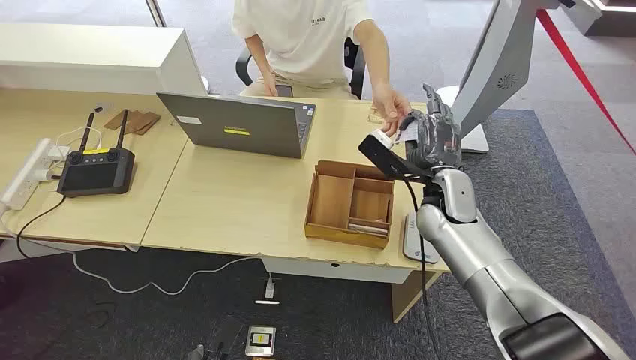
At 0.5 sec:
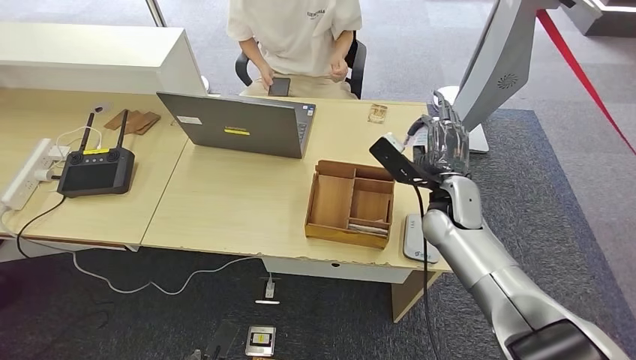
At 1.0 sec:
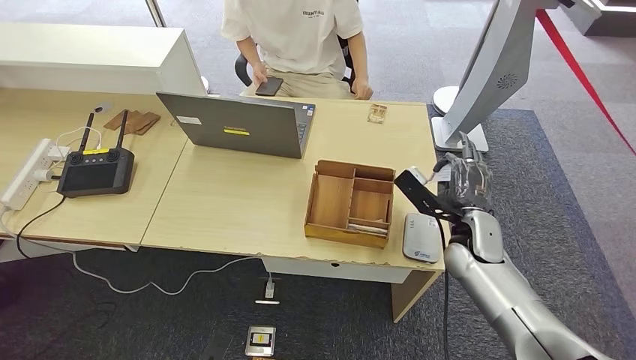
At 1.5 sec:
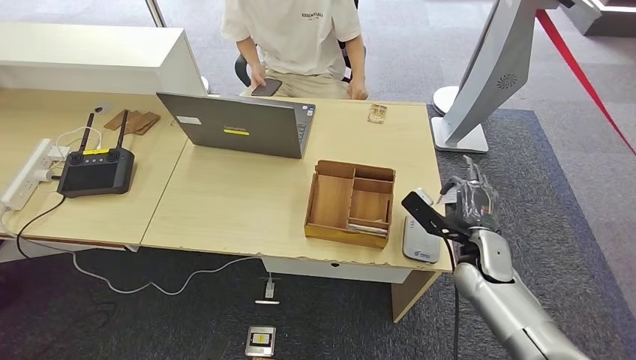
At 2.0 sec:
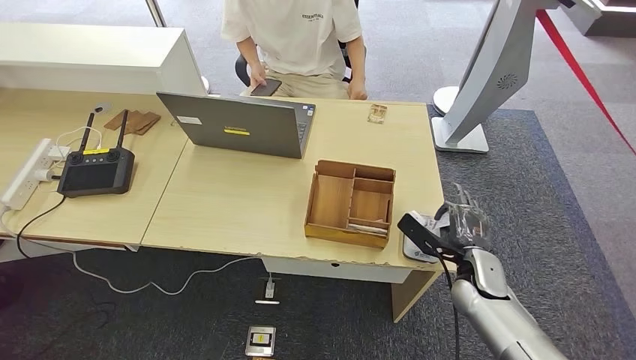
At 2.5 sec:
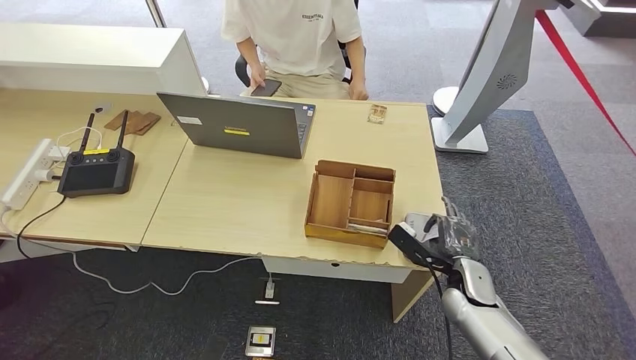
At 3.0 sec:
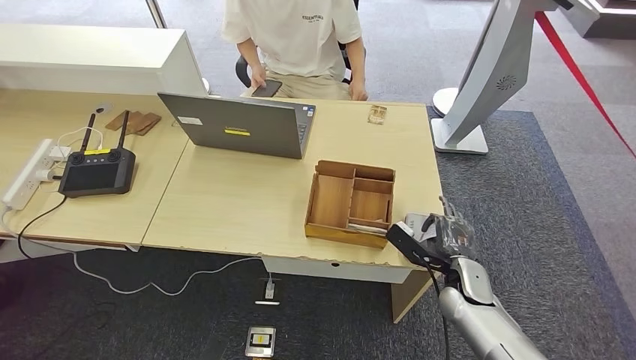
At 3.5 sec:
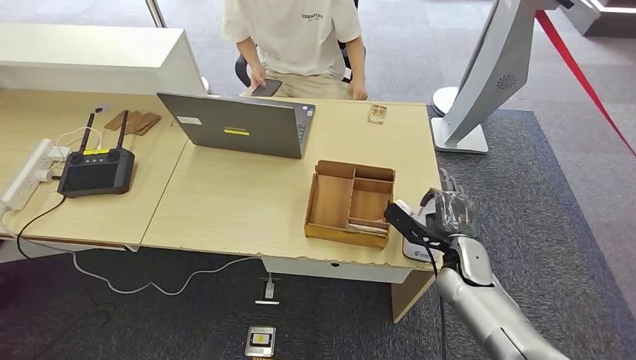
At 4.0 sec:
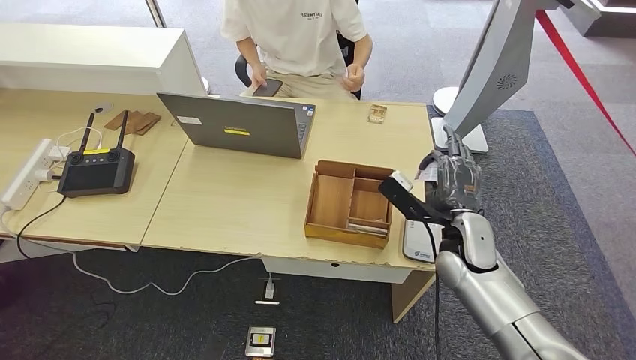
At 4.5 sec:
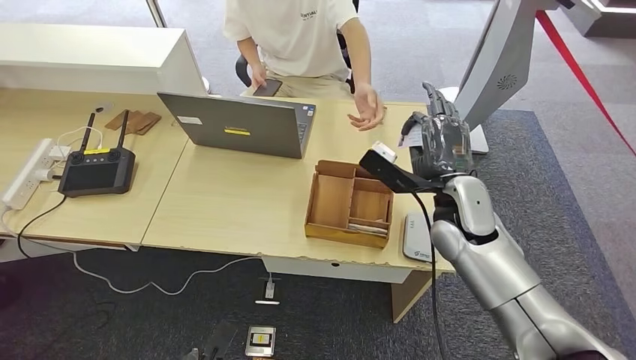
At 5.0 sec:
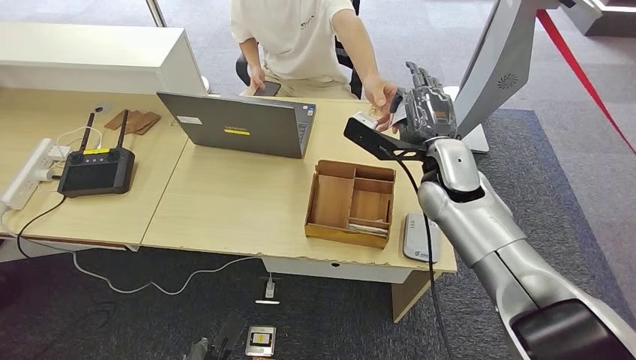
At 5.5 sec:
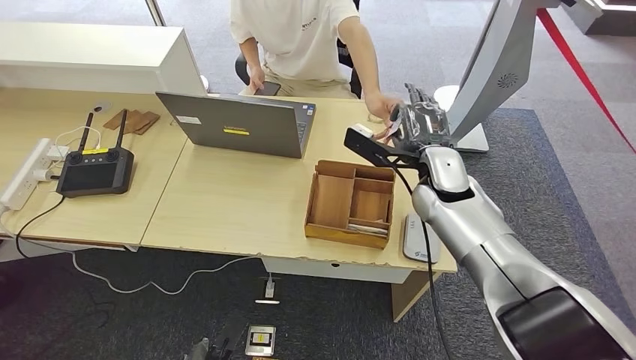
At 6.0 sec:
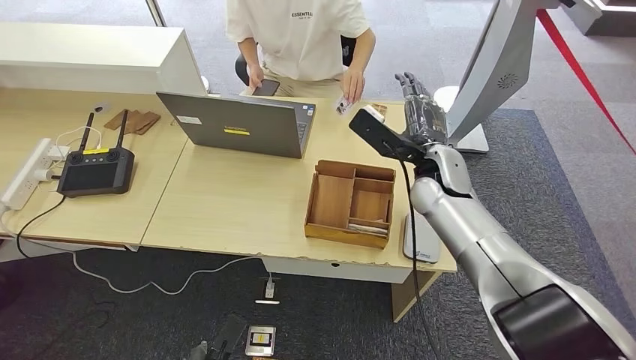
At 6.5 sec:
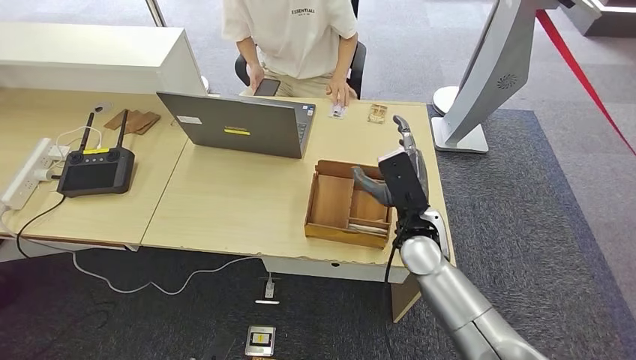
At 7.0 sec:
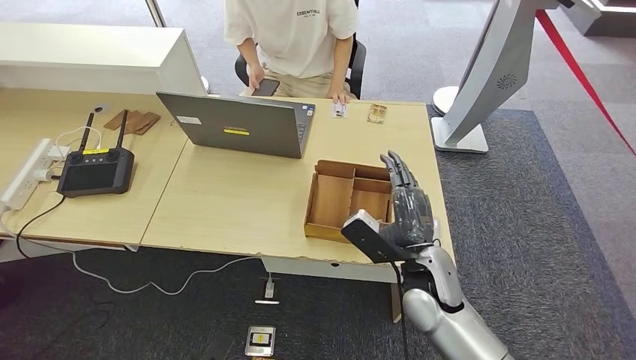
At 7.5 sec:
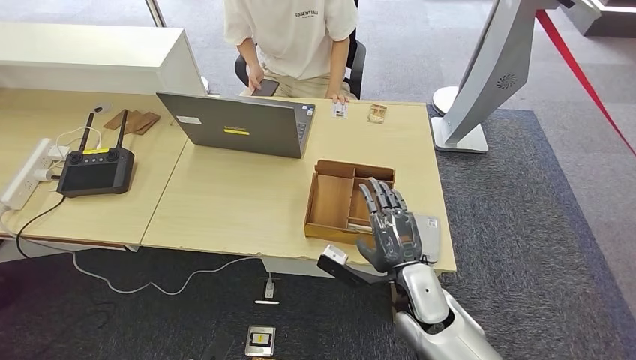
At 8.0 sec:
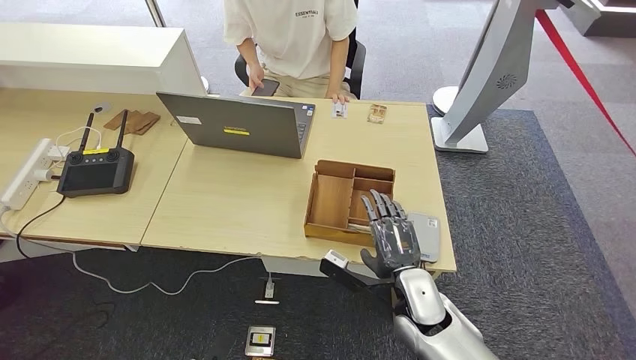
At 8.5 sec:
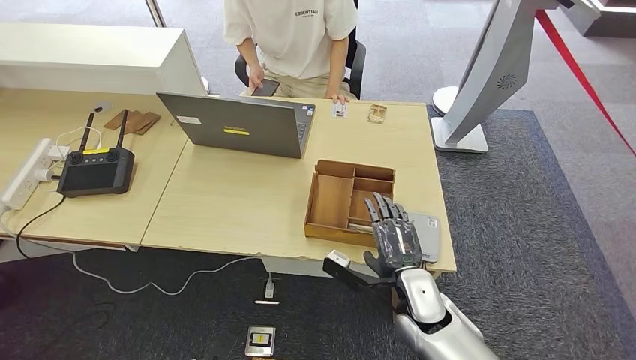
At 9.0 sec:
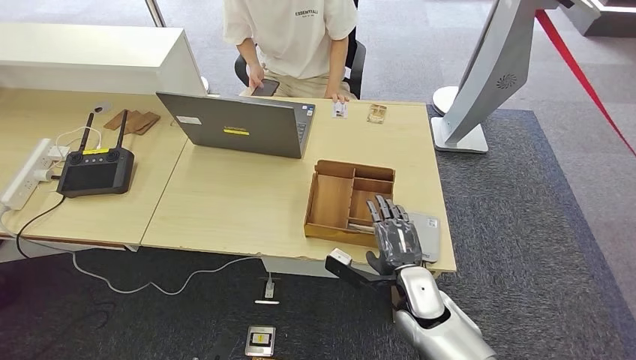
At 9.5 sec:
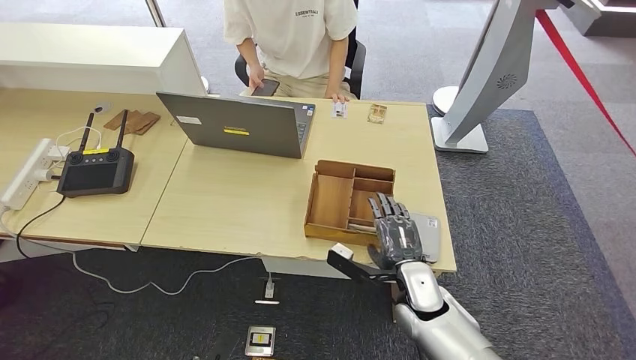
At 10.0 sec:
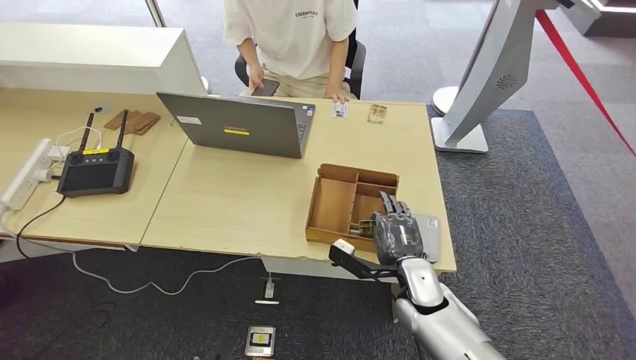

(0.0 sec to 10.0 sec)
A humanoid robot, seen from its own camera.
Step, 0.0 sec - 1.0 sec: Take the ID card from the person's hand.
Step, 1.5 sec - 3.5 sec: Place the ID card on the card reader.
Step, 4.0 sec - 6.0 sec: Hand the ID card to the person.
2.0 sec - 4.0 sec: The right hand travels upward and to the left by some 10 cm.
4.0 sec - 6.0 sec: The right hand travels upward, forward and to the left by about 15 cm.
6.0 sec - 8.0 sec: The right hand is displaced backward and downward by about 20 cm.
8.0 sec - 10.0 sec: The hands stay close to where they were, moving slightly.

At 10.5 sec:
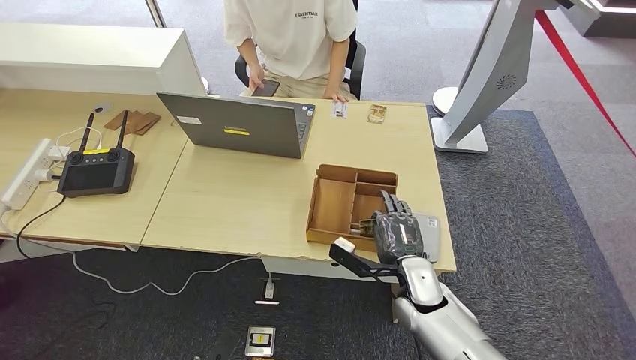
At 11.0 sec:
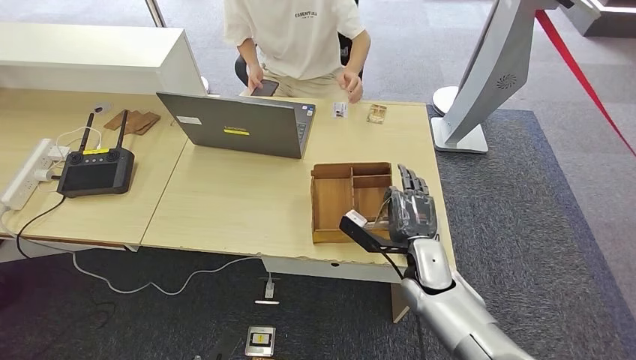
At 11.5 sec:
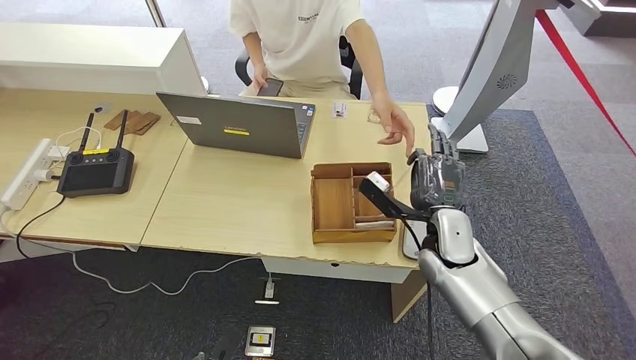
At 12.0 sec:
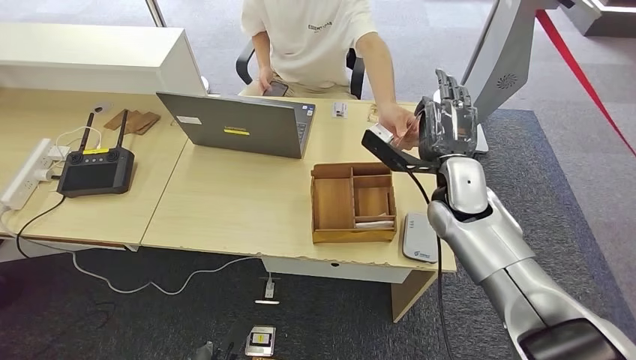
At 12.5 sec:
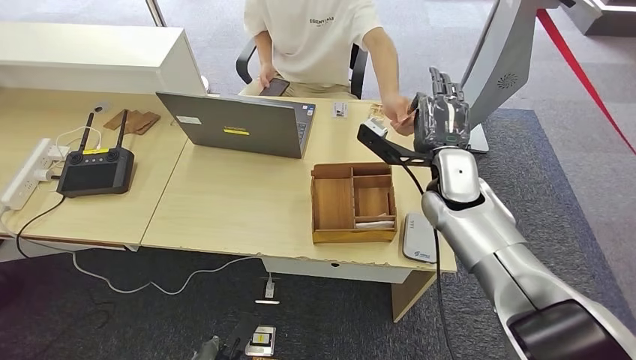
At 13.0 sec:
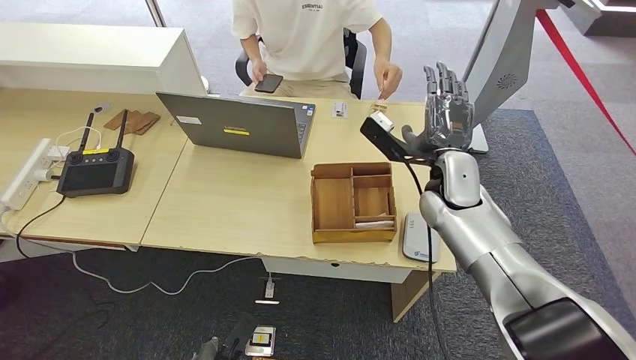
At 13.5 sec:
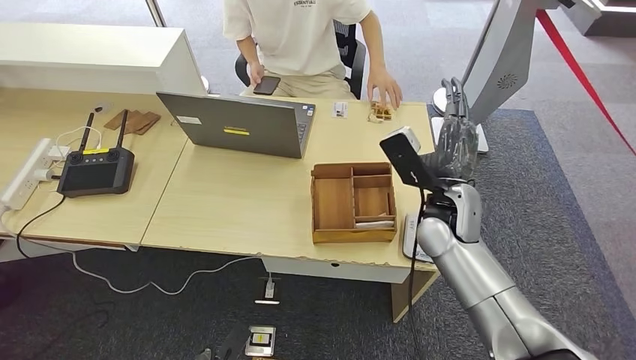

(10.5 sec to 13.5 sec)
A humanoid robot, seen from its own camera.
Step, 12.0 sec - 13.5 sec: Hand the room key to the person.
10.5 sec - 12.0 sec: The right hand travels upward and forward by some 20 cm.
